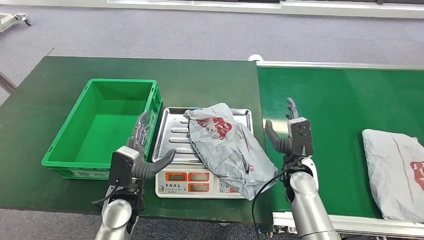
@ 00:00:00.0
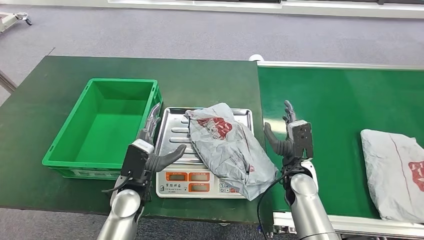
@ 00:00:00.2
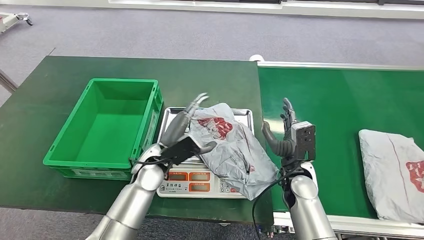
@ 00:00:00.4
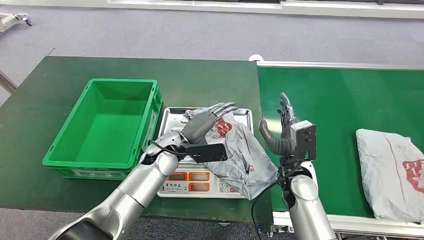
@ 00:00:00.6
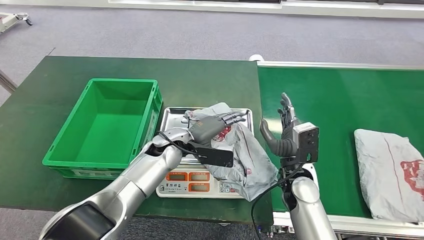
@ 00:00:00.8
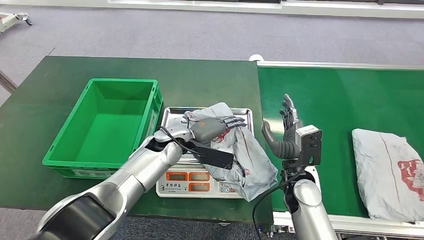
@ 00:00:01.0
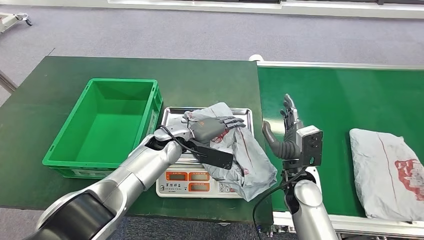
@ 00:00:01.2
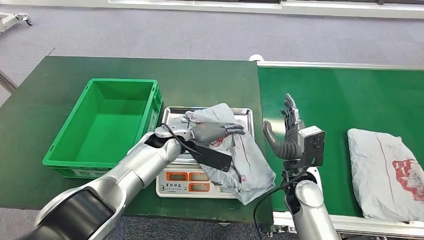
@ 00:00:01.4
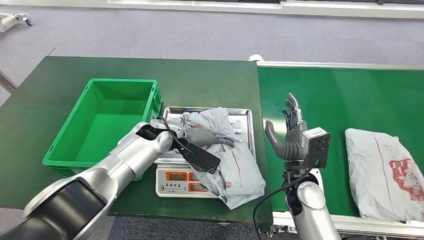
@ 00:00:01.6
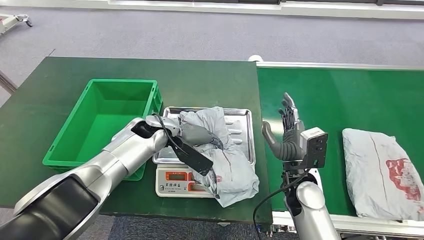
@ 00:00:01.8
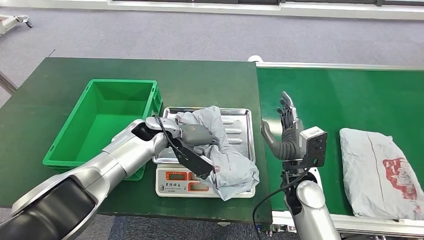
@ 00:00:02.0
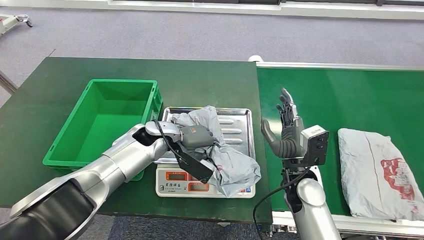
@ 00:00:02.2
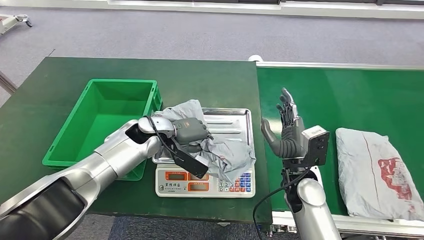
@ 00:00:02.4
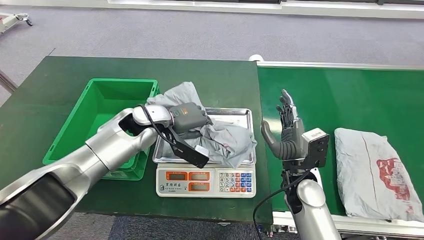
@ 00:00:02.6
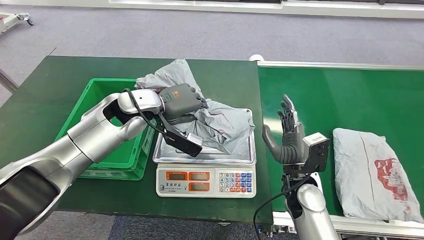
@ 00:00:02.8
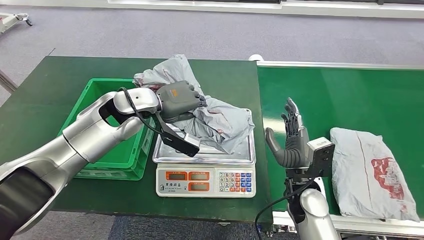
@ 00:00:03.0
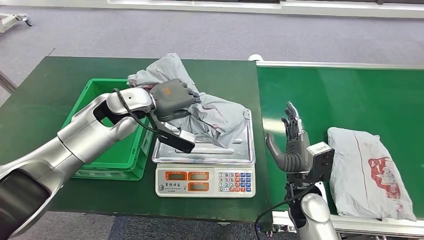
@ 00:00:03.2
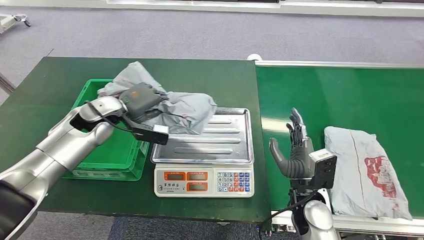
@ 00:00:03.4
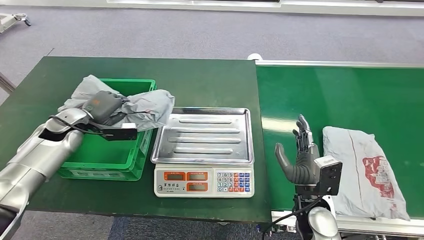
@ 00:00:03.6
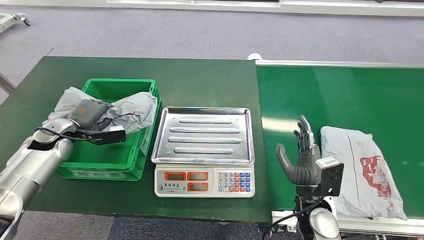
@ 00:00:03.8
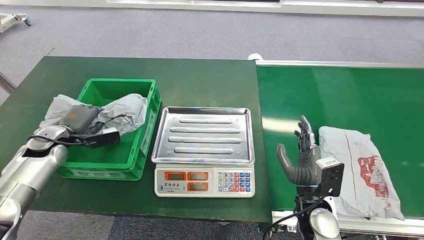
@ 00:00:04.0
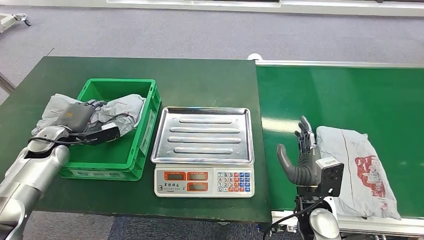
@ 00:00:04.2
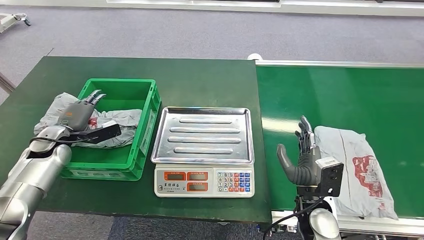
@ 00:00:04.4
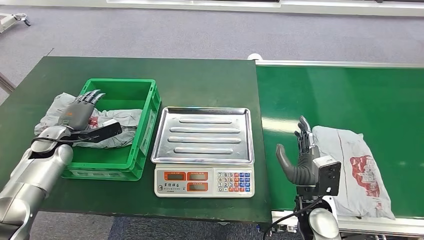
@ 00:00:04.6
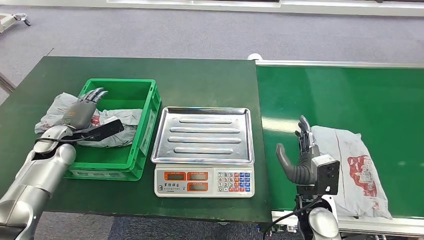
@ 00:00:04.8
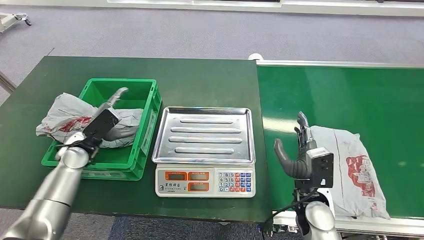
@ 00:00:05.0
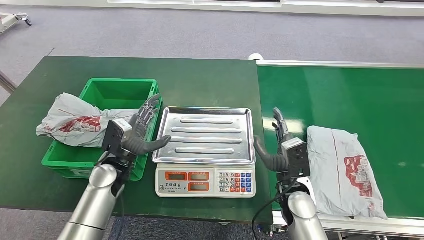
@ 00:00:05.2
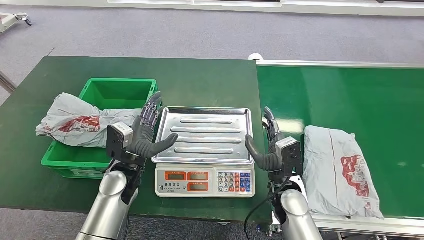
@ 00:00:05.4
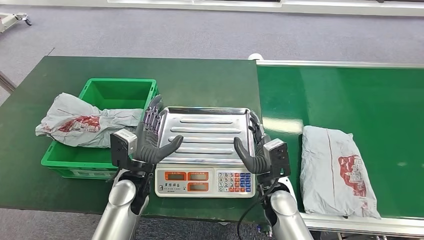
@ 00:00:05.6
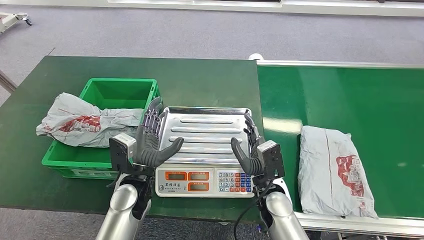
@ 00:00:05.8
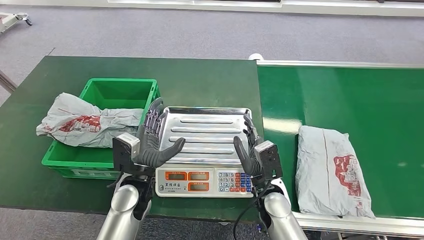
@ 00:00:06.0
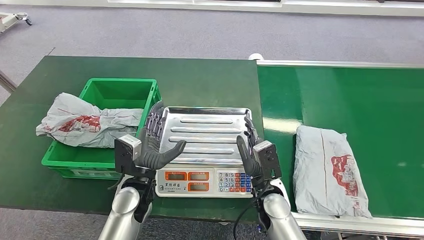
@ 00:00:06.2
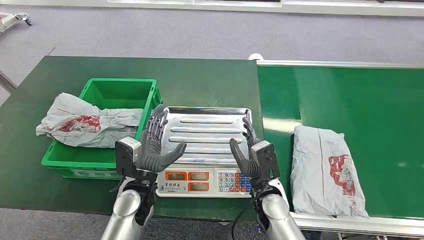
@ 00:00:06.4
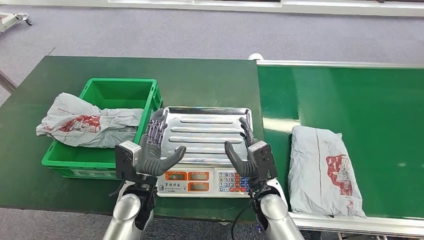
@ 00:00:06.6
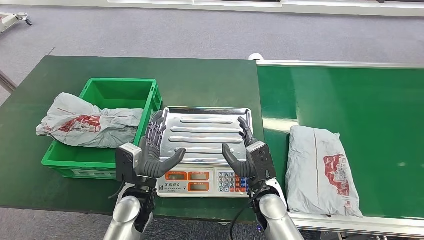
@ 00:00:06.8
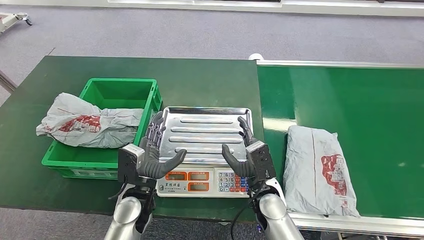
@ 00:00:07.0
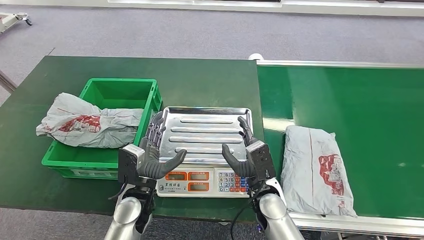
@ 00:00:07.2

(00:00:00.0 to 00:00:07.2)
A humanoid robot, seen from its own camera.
Step, 00:00:00.6 - 00:00:03.8: Pick up the package from the inbound machine.
Step, 00:00:04.2 - 00:00:07.2: Place the package into the parcel locker.
00:00:00.0 - 00:00:01.4: The left hand shifts about 15 cm forward.
00:00:05.8 - 00:00:07.2: There are only small adjustments of the hands.

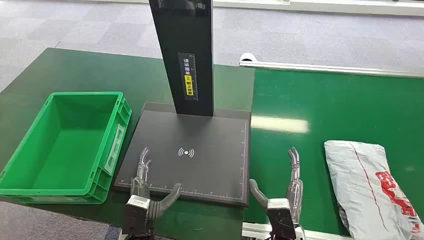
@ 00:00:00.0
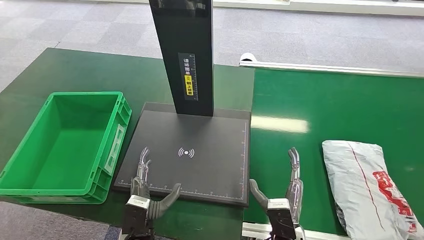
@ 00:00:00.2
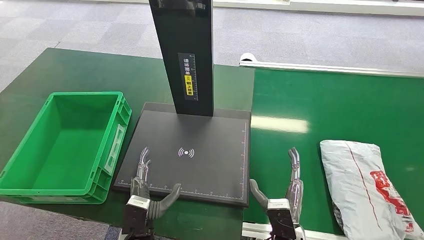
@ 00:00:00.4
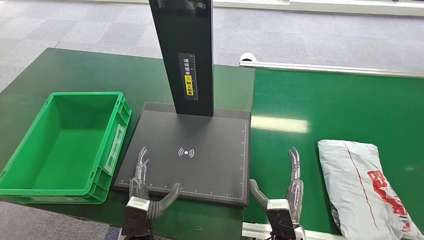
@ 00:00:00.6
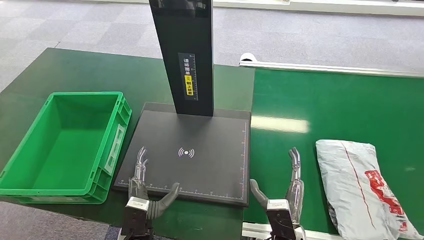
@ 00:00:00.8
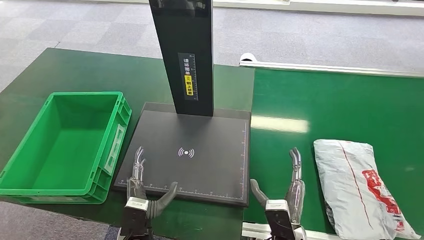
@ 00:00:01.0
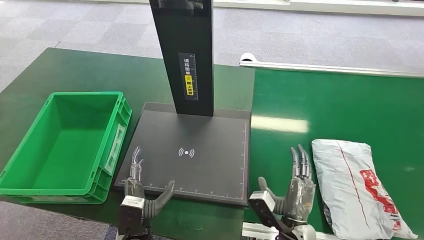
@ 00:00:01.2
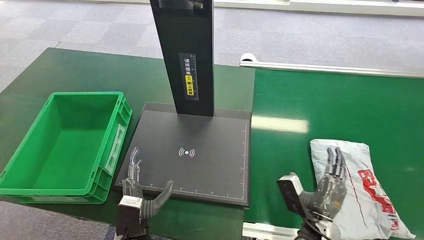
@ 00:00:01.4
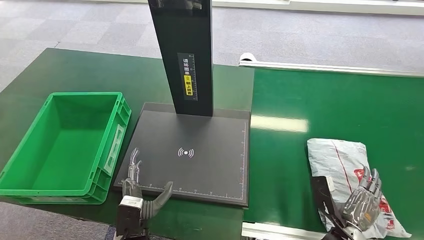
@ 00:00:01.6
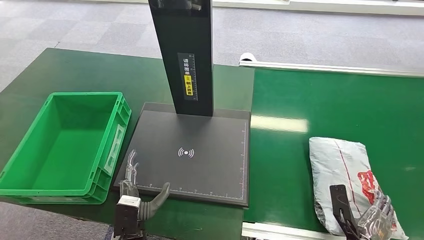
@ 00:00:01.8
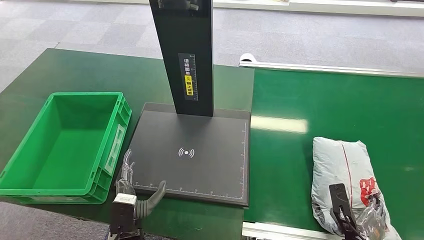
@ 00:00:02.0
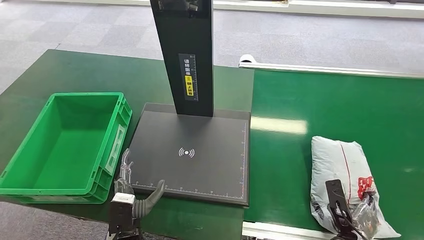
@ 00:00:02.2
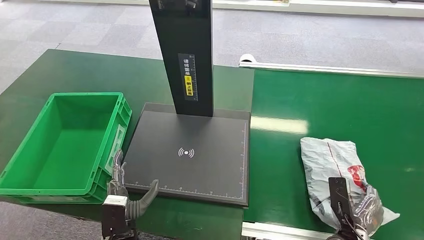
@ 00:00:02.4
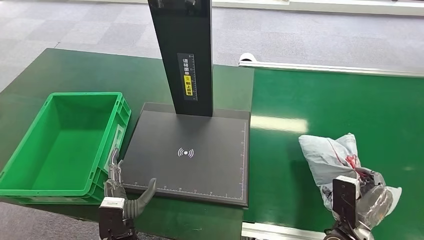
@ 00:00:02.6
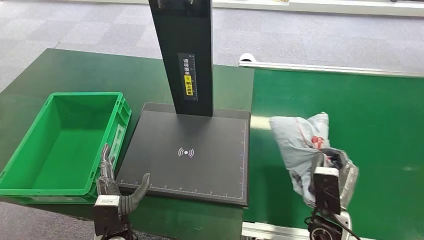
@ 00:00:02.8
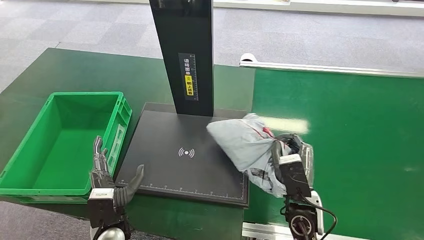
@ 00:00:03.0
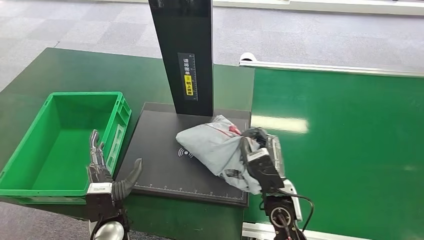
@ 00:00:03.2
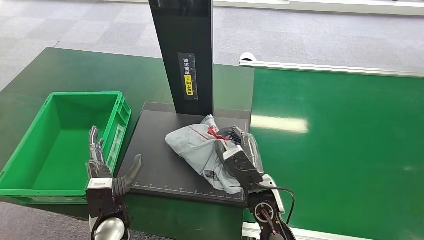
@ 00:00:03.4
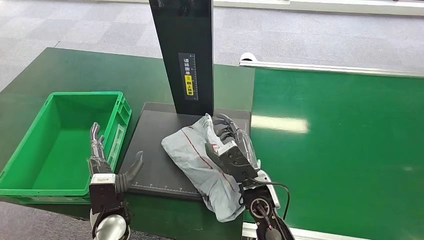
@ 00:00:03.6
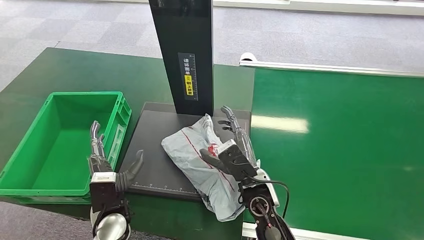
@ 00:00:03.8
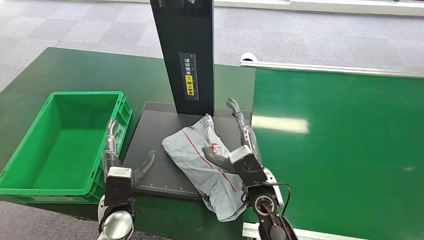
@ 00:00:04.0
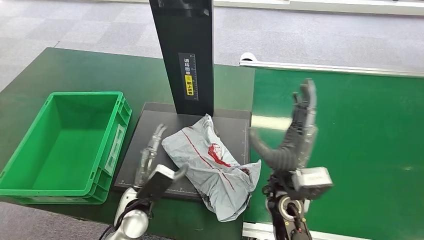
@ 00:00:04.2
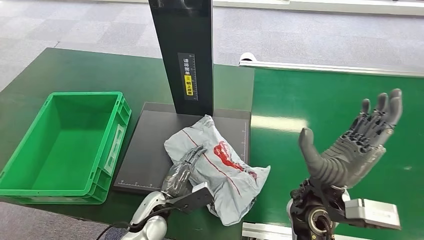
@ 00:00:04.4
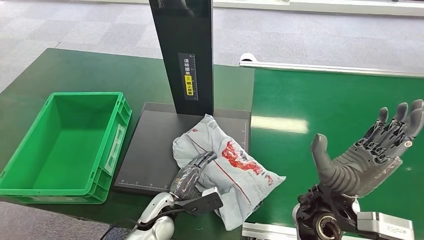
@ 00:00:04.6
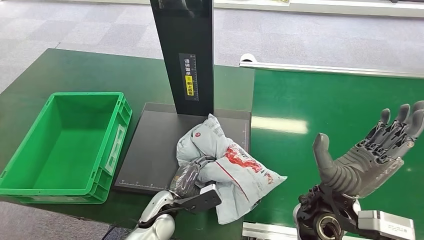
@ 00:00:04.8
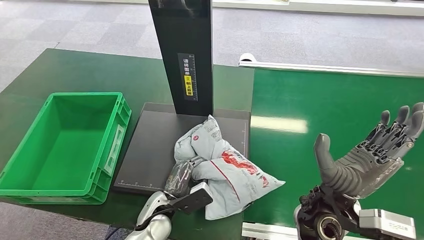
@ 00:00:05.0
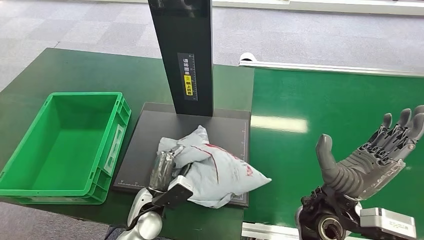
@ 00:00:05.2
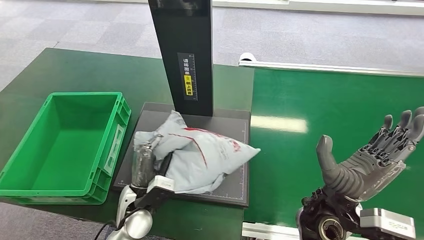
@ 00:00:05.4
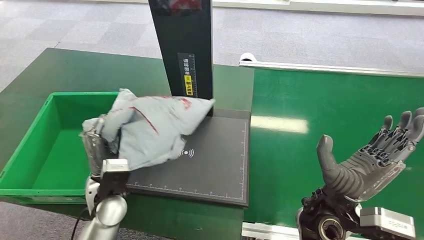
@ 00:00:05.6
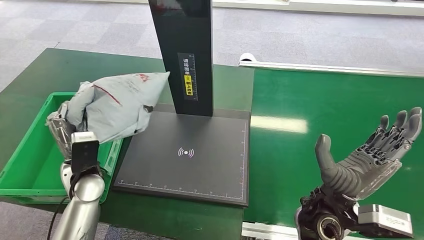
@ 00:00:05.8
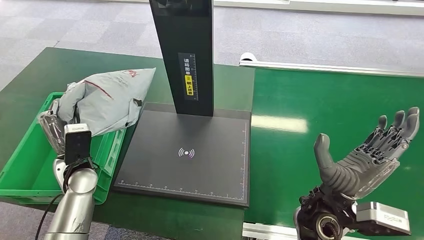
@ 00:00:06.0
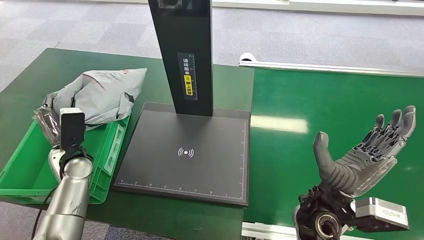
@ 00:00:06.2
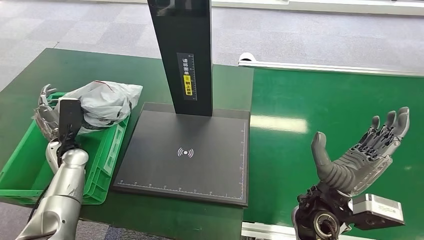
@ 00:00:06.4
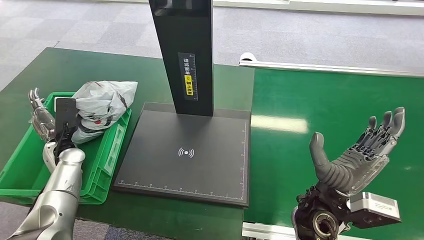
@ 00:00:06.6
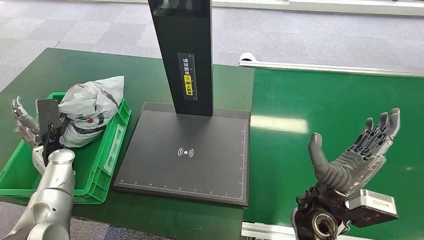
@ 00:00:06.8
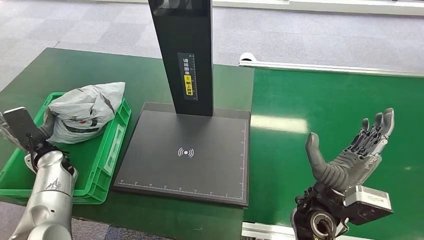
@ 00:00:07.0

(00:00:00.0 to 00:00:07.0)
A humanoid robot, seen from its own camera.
Step, 00:00:00.0 - 00:00:02.8: Pick up the package from the conveyor belt.
Step, 00:00:03.0 - 00:00:04.0: Place the package onto the inbound machine.
Step, 00:00:04.2 - 00:00:05.4: Pick up the package from the inbound machine.
Step, 00:00:05.6 - 00:00:07.0: Place the package into the parcel locker.
